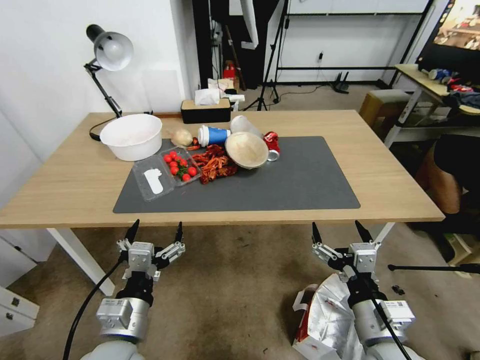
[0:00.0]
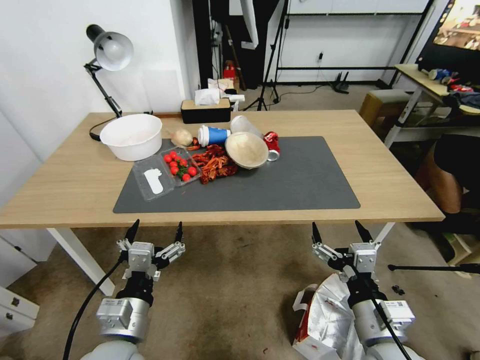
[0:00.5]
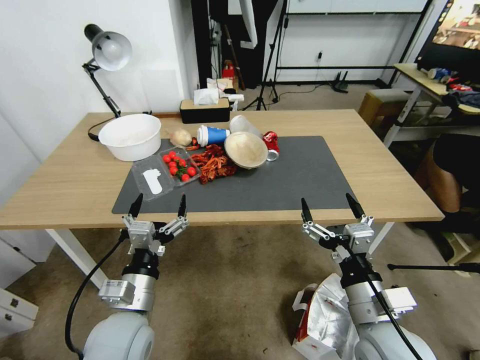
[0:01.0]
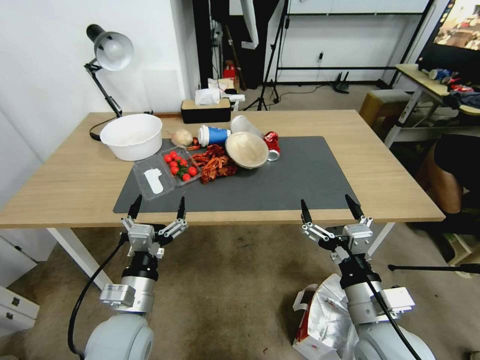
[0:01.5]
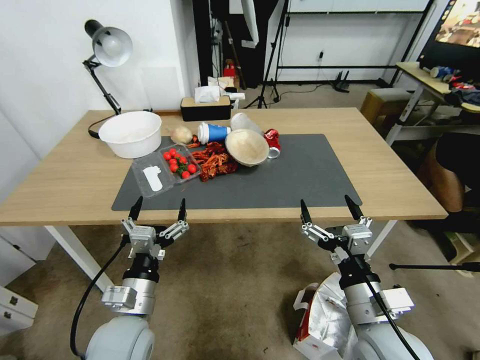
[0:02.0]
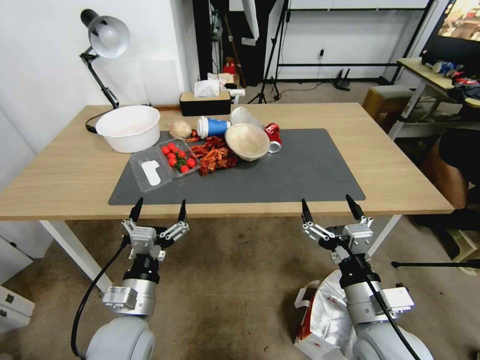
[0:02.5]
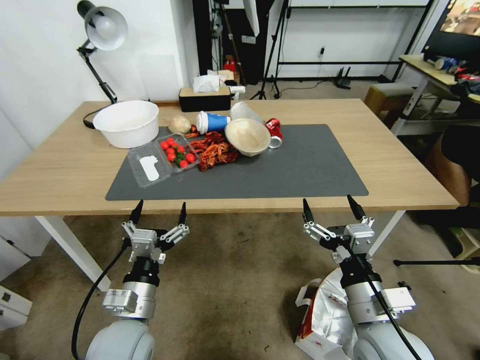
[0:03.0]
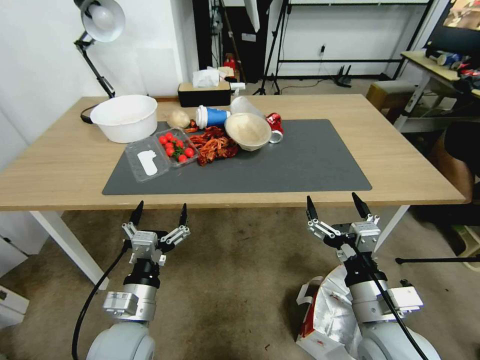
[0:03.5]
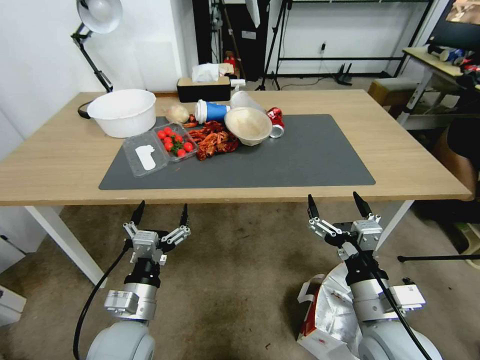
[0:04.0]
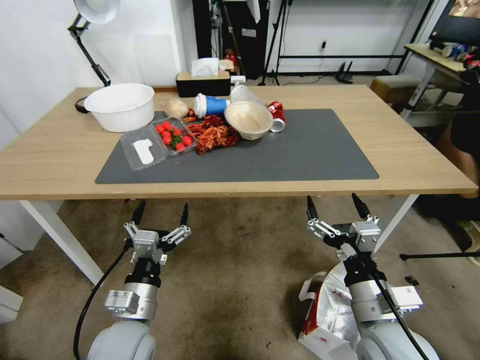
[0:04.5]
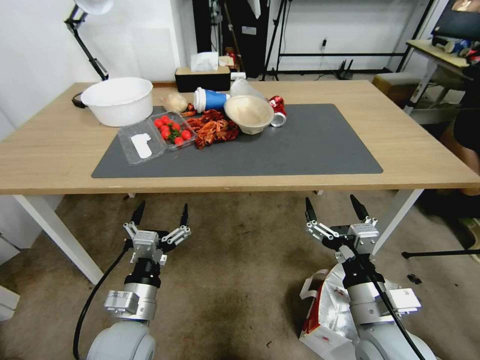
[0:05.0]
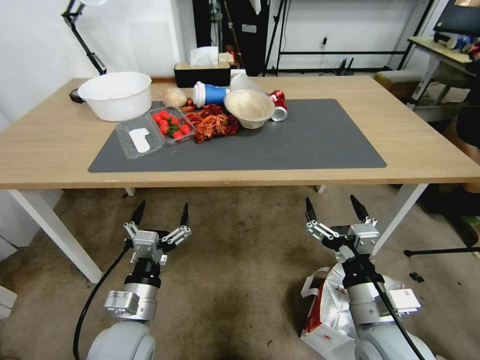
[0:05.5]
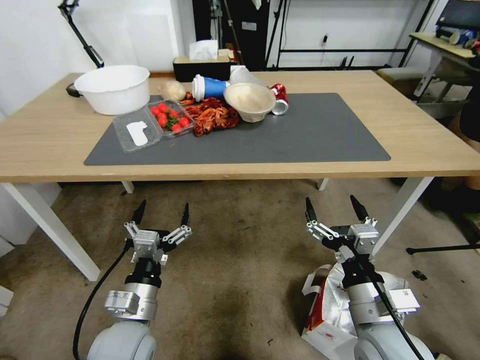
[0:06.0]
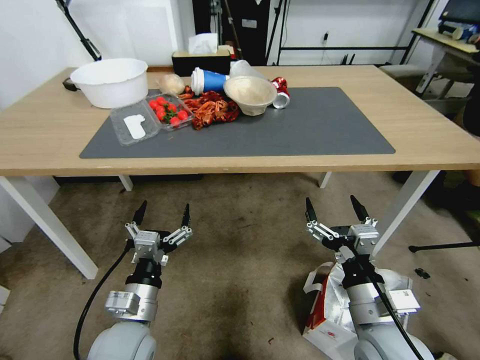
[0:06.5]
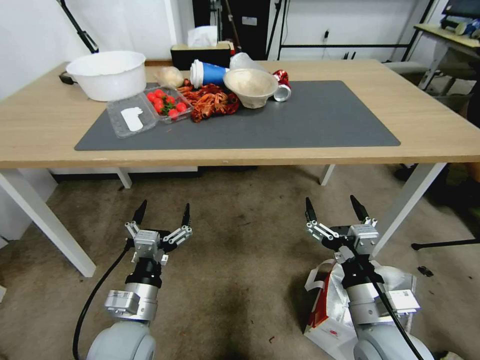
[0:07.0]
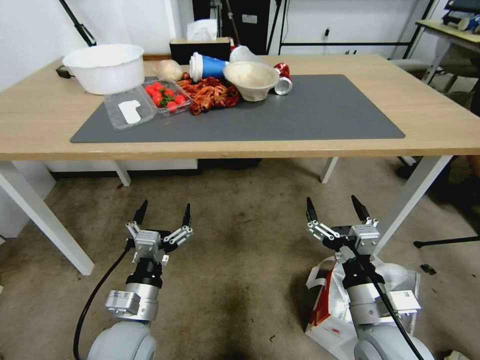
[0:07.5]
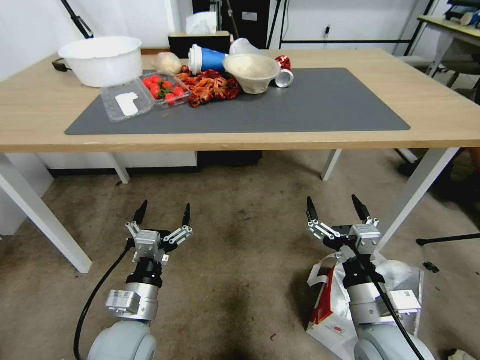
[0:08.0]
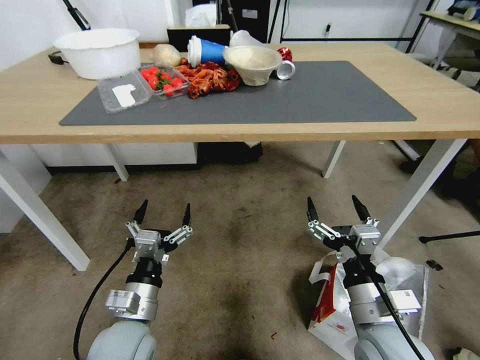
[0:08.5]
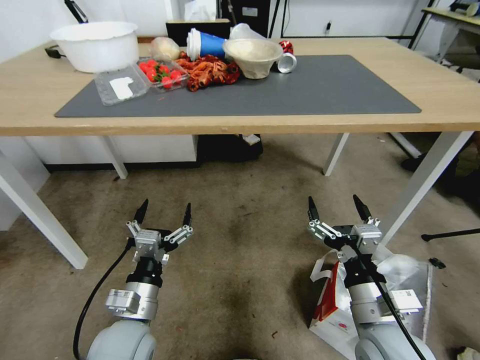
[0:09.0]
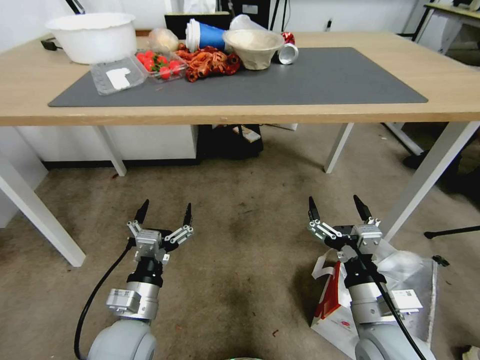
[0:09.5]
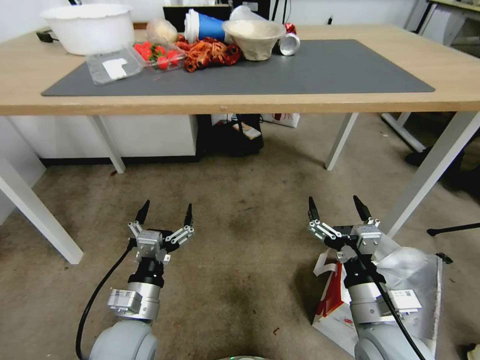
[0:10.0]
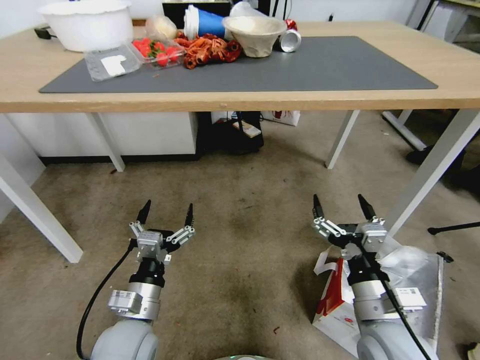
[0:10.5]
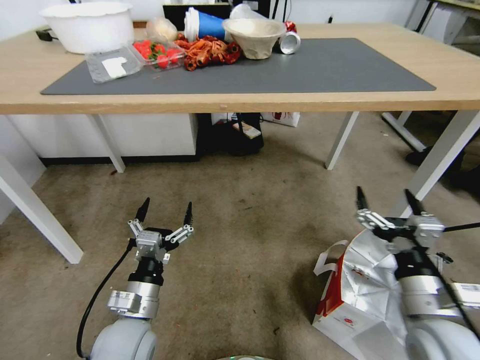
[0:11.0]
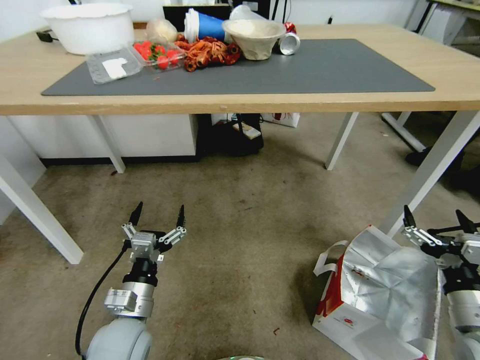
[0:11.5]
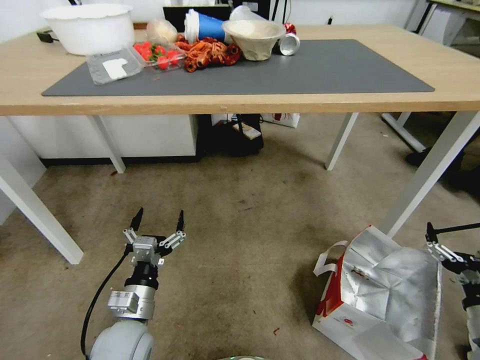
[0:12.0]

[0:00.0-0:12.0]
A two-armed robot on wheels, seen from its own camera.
Task of the whole recording: Pick up the food delivery bag from the floor and place it on the table.
0:10.0 to 0:12.0: The right gripper is displaced to the right by roughly 20 cm.

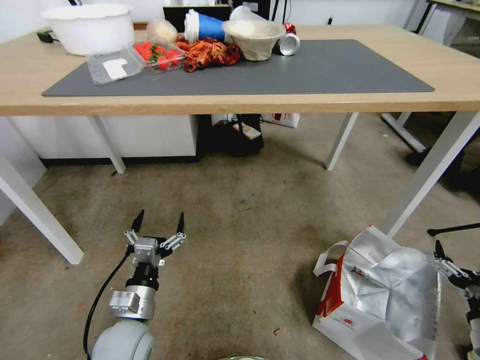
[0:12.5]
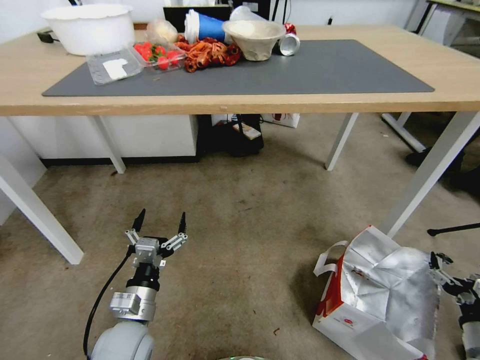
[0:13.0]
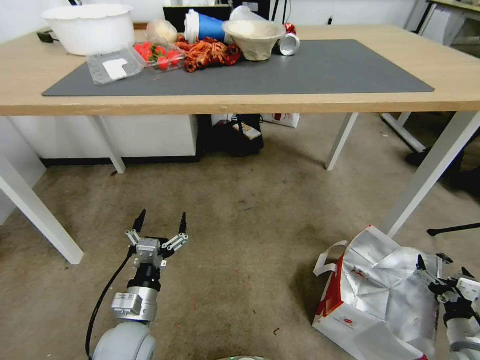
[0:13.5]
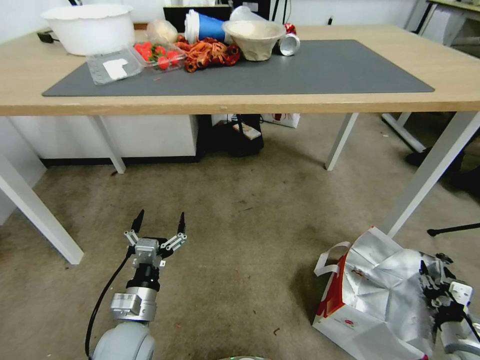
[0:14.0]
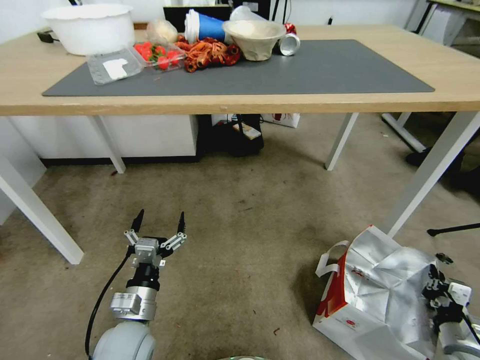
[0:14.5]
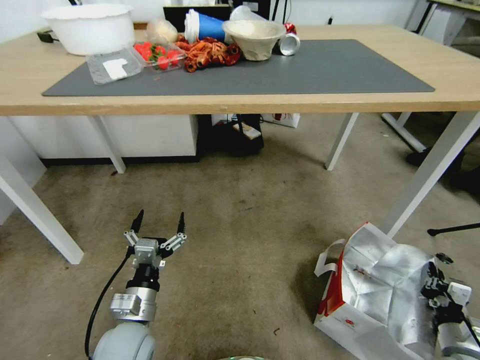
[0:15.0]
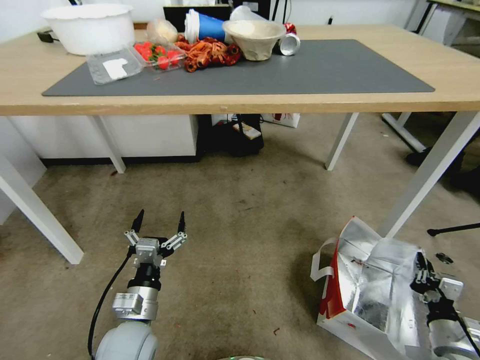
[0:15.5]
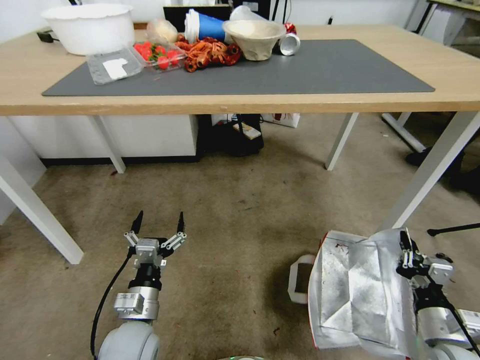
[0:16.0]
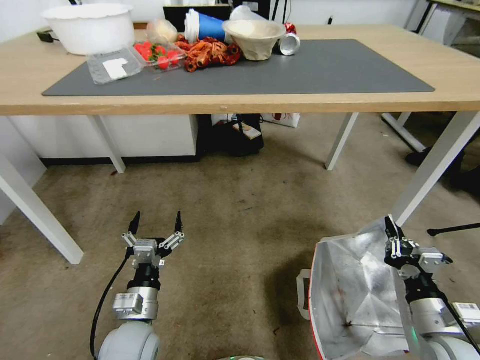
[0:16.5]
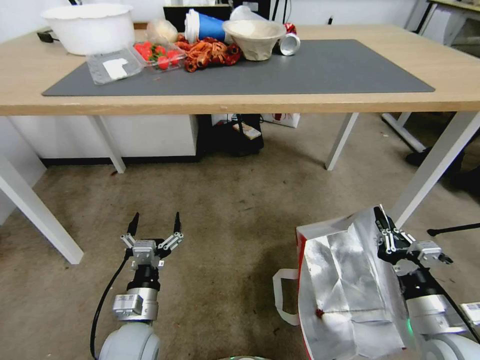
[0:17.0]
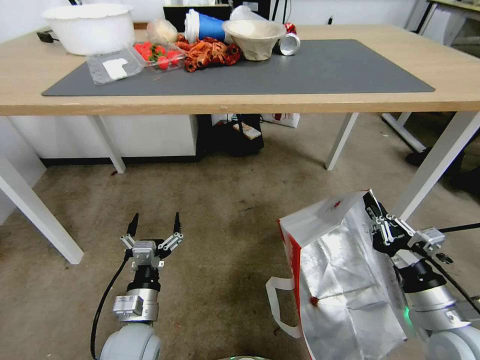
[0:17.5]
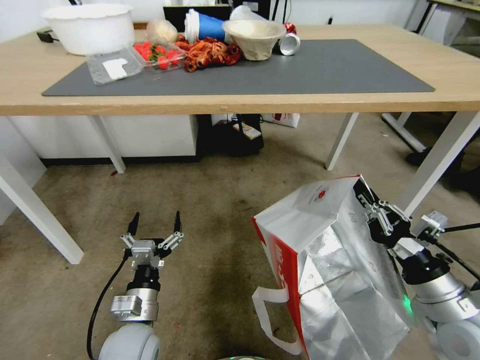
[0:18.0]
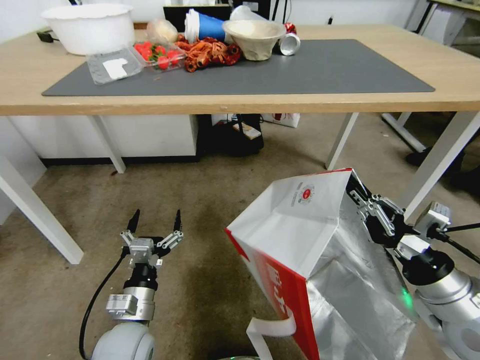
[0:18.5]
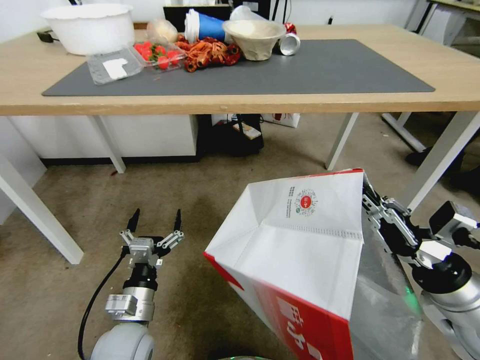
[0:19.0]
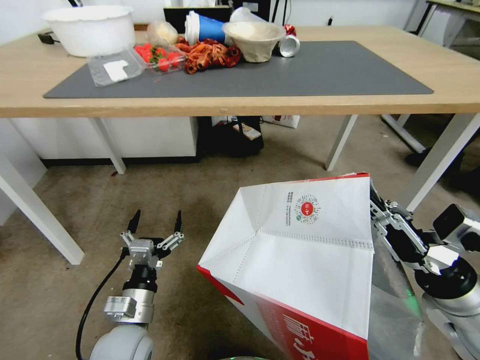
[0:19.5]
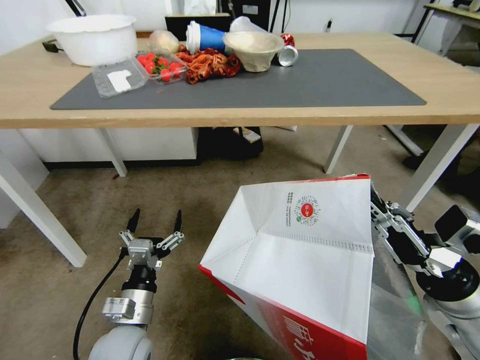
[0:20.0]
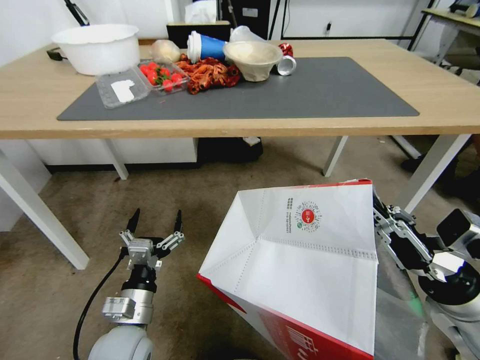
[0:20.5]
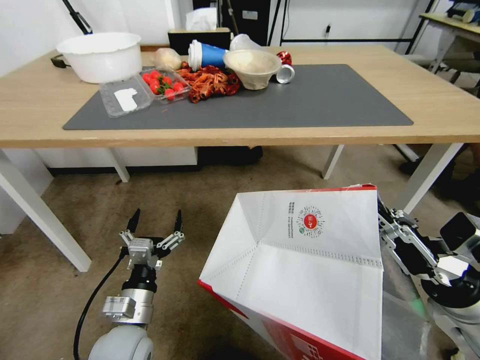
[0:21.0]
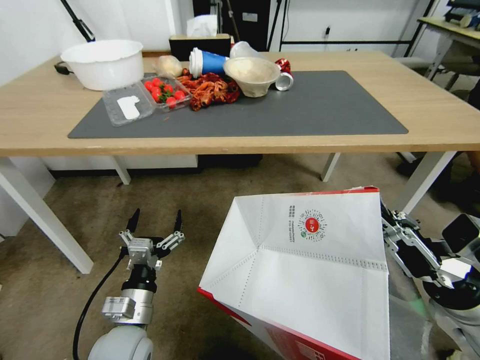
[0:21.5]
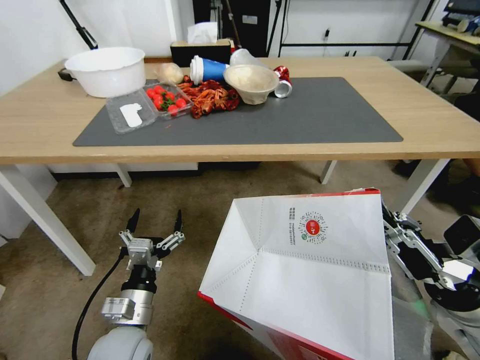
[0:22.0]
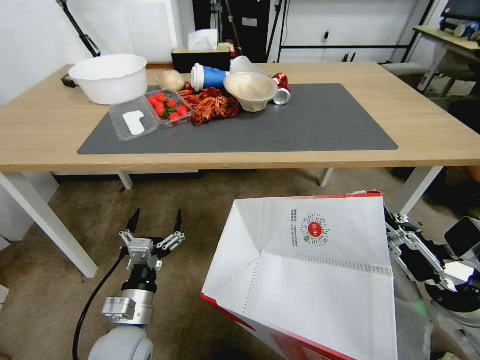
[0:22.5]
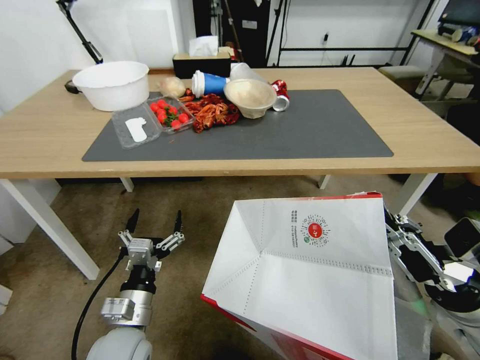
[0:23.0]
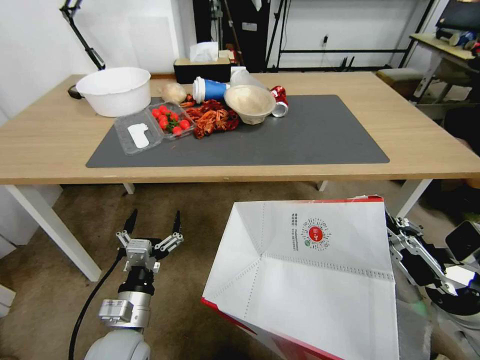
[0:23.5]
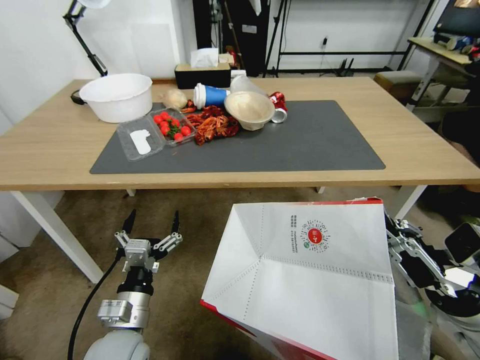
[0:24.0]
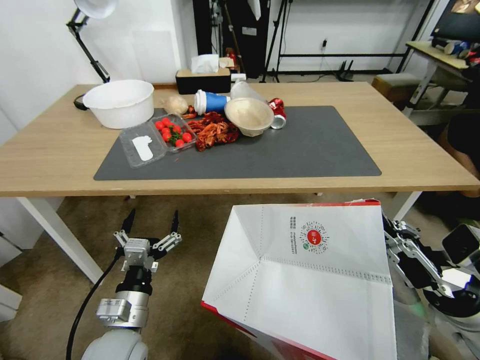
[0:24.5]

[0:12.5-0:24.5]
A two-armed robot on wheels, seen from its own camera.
Task of the whole recording: Pick up the food delivery bag from the floor and place it on the table.
0:12.5 to 0:14.5: The right gripper is displaced downward by approximately 10 cm, and closes up.
0:14.5 to 0:16.5: The right gripper shifts some 15 cm upward and to the left.
0:16.5 to 0:18.5: The right gripper is displaced upward by approximately 15 cm.

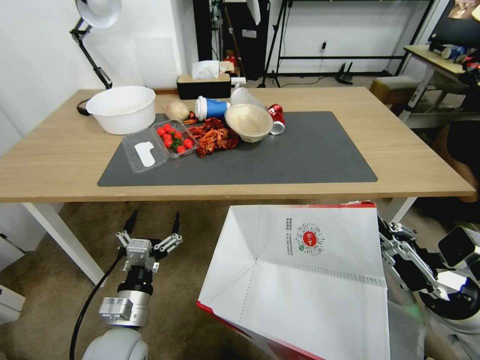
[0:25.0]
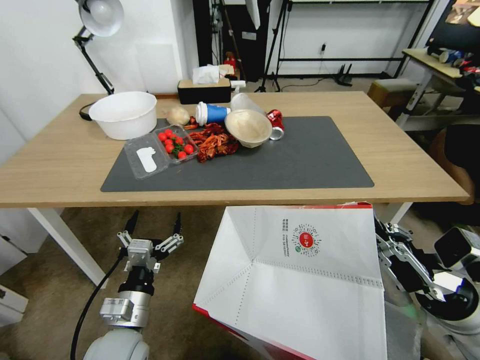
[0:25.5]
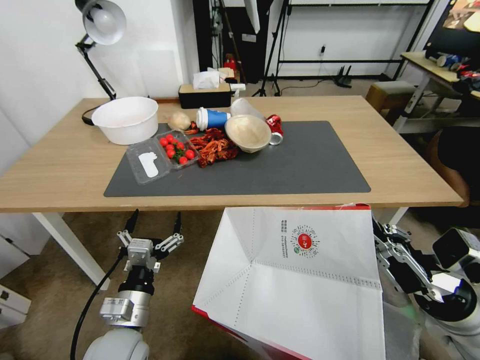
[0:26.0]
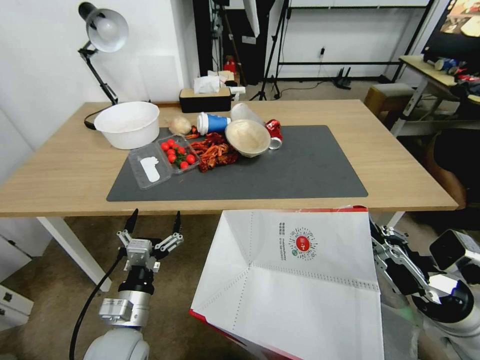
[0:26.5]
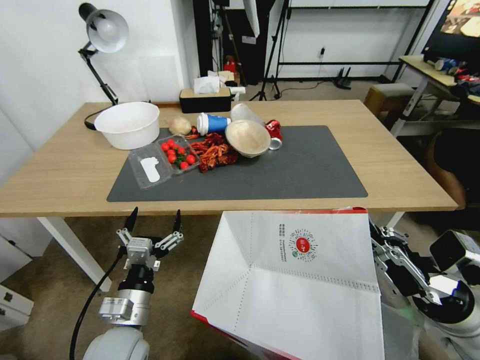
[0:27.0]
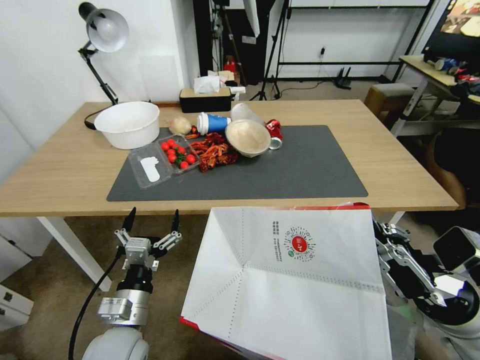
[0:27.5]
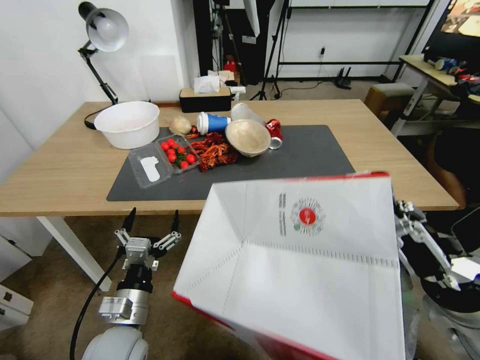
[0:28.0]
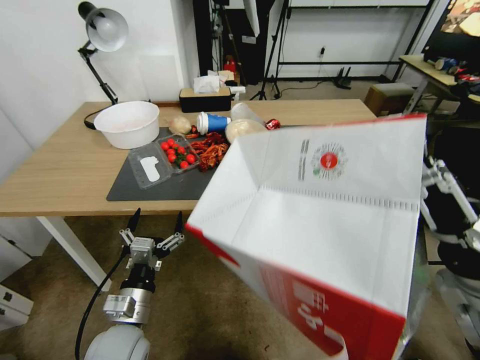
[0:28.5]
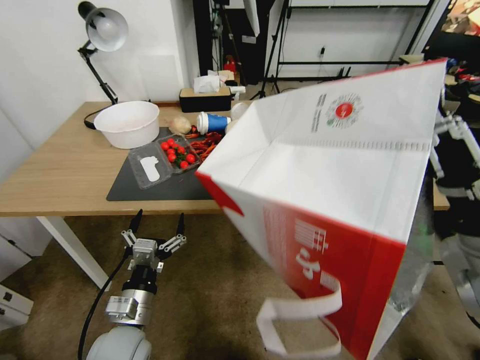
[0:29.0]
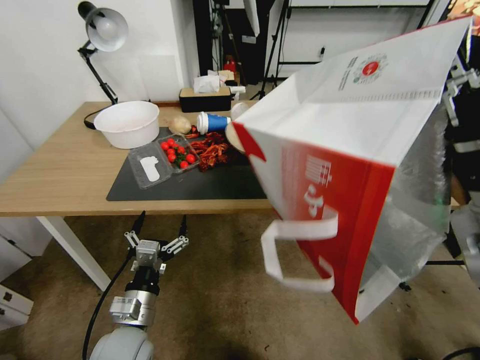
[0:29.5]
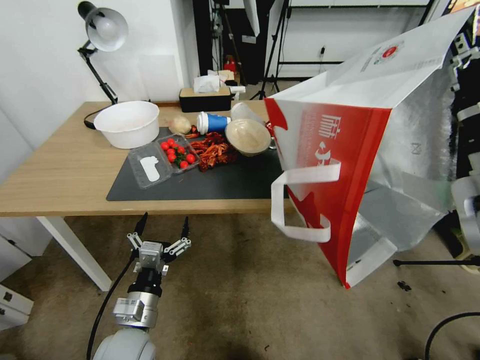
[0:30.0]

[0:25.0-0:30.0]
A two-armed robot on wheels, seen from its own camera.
Task of the whole recording: Pick up the food delivery bag from the floor and place it on the table.
0:27.5 to 0:30.0: The right gripper travels upward and forward by approximately 15 cm.
